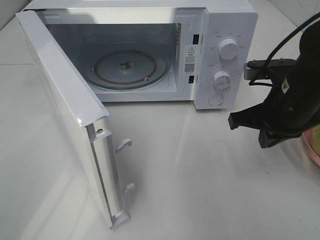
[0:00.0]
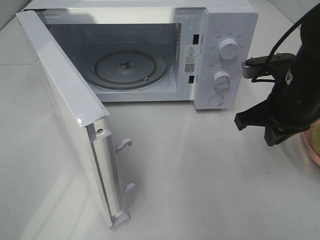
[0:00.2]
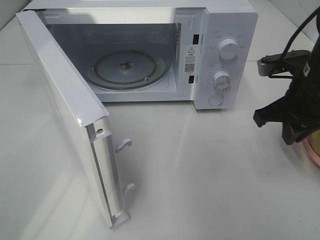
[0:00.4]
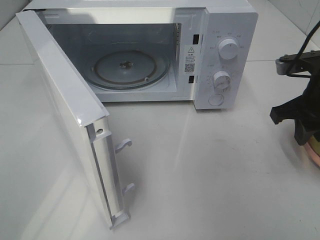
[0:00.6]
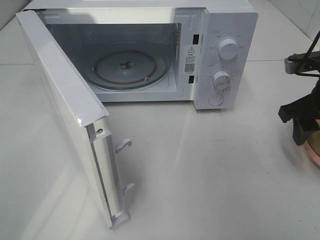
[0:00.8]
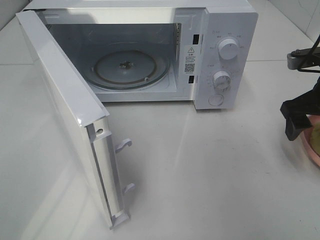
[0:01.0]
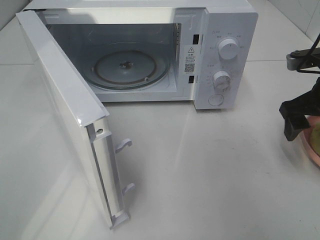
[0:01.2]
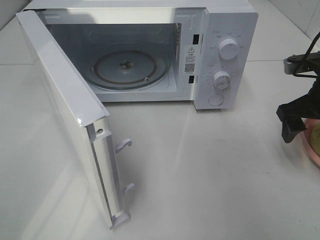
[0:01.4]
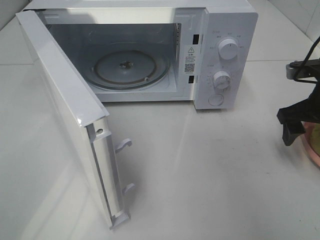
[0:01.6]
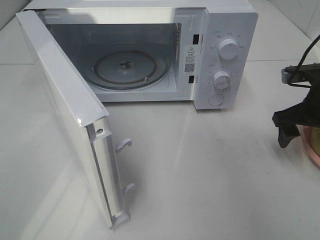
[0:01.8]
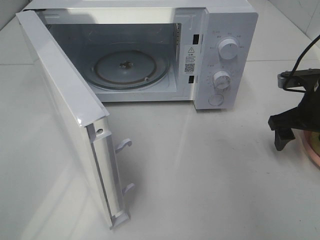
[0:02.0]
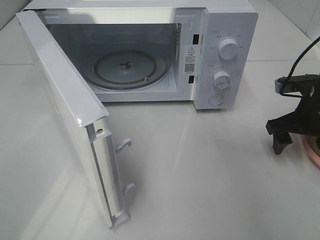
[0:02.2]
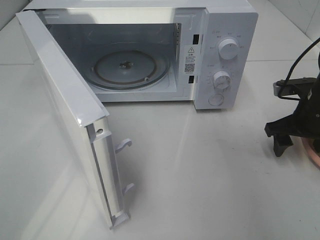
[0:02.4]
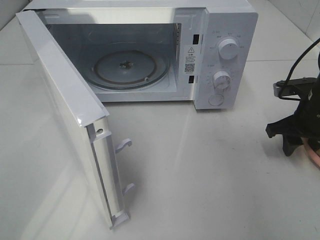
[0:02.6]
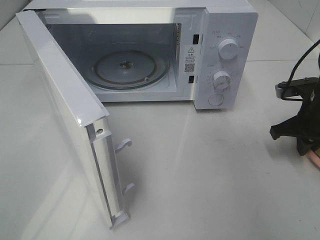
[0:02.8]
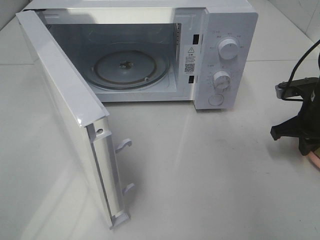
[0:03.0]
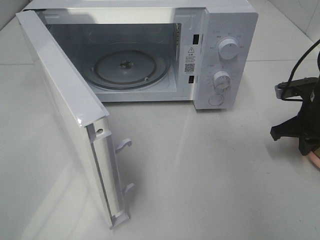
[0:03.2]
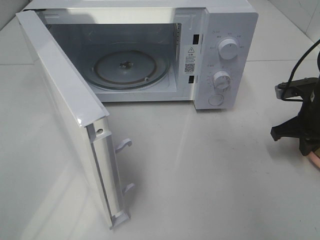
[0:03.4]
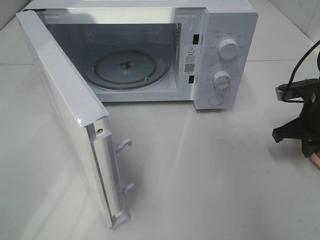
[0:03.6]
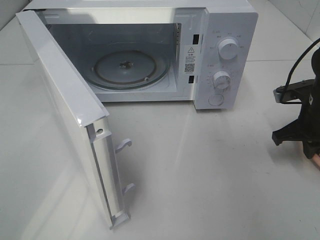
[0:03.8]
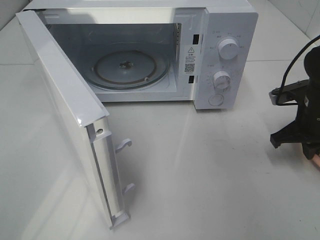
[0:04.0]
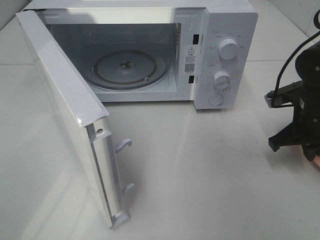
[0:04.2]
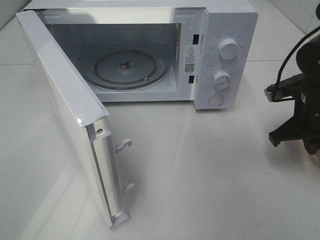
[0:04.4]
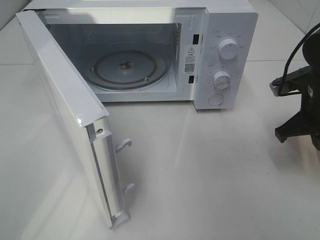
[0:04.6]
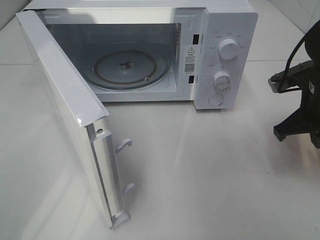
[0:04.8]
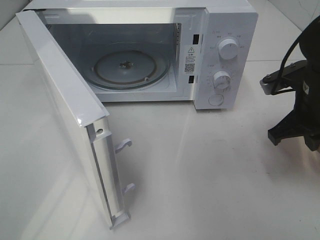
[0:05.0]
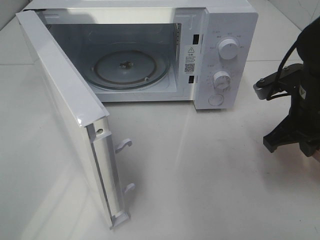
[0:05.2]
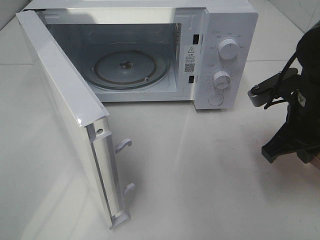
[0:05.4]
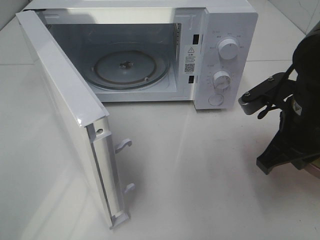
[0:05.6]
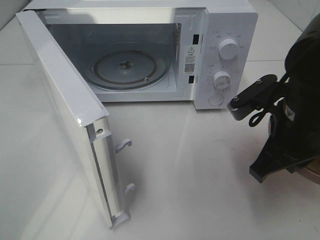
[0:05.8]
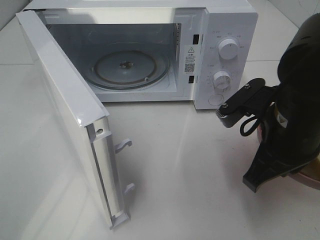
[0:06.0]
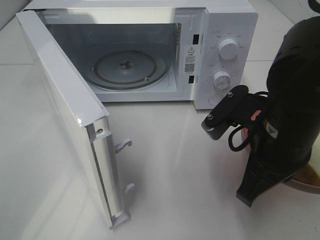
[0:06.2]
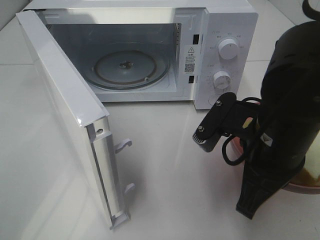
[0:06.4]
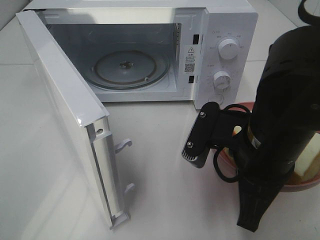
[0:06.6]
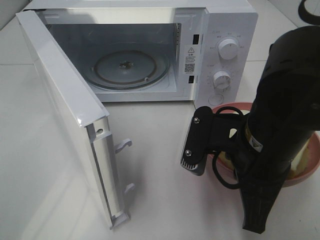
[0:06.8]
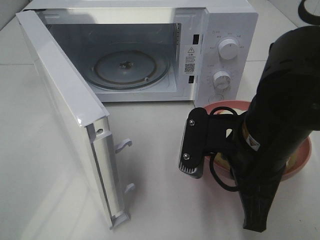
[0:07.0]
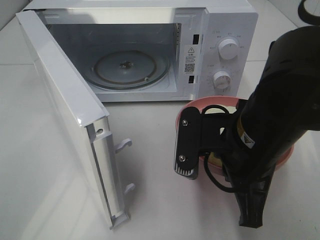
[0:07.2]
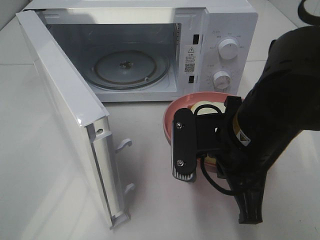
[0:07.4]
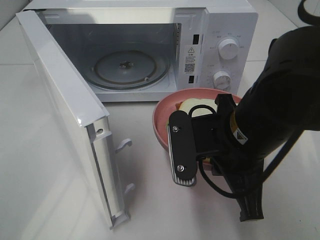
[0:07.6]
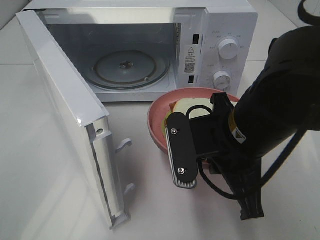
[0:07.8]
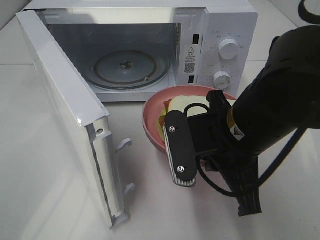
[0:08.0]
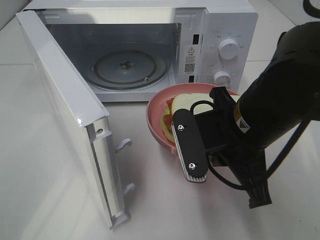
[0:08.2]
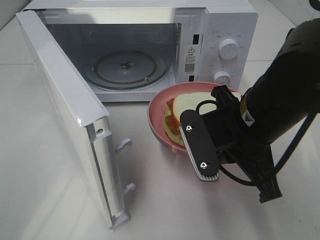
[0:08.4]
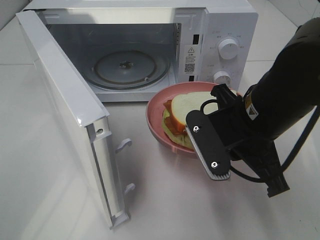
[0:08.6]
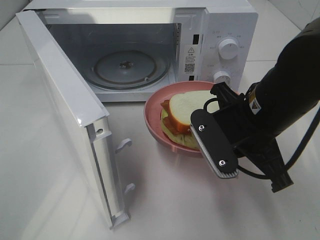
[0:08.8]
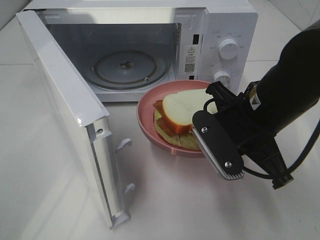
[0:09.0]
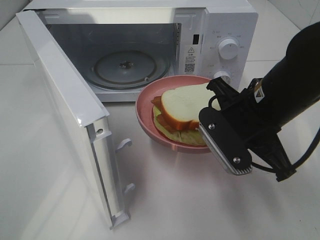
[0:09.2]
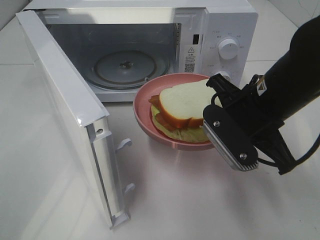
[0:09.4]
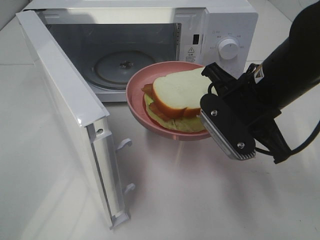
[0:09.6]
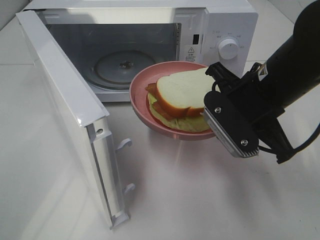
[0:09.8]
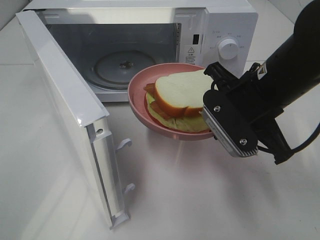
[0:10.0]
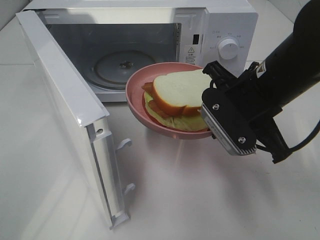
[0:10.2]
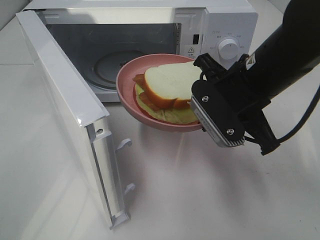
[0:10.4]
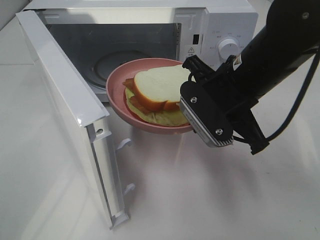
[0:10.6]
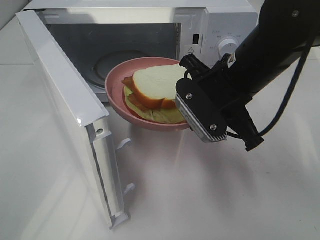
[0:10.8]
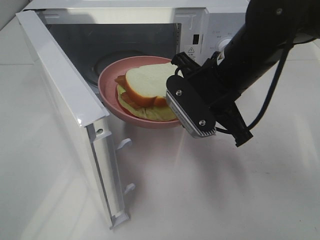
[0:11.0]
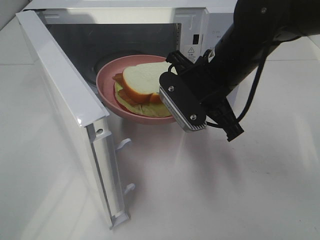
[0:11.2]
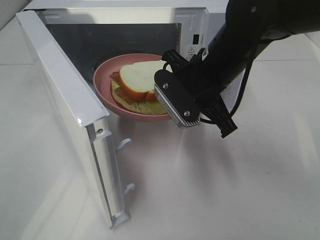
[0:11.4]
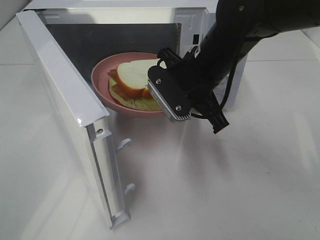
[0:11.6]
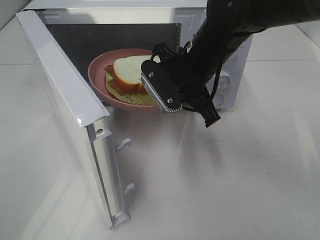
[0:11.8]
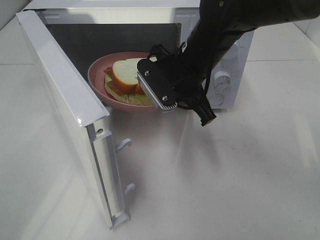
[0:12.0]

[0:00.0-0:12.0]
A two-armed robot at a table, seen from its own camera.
Task of the whole recording: Heat Sandwich.
Step, 0:00.0 to 0:03.2: Right hand: grab the plate with the sandwich.
0:00.0 to 0:01.6: The right gripper heads to the right, covering some 10 cm, and opens up.
0:01.6 to 0:03.0: The right gripper closes its fingers.
0:03.0 to 0:04.4: The grippers stay close to where they were, moving slightly.
0:04.4 to 0:06.0: The right gripper goes approximately 15 cm to the left, backward and upward.
0:06.0 to 0:07.6: The right gripper is displaced to the left by some 5 cm.
0:07.6 to 0:09.0: The right gripper shifts by approximately 5 cm.
0:10.4 to 0:12.0: The right gripper goes approximately 10 cm forward and to the left.

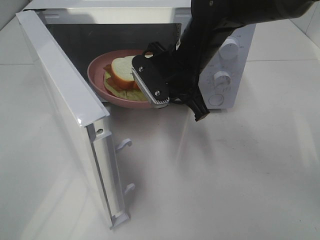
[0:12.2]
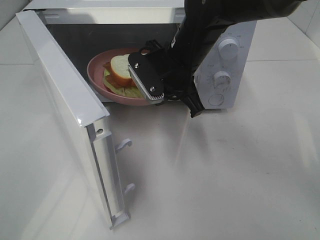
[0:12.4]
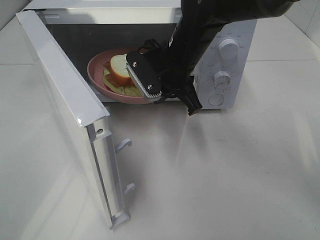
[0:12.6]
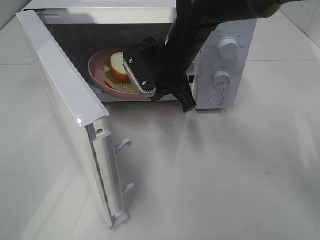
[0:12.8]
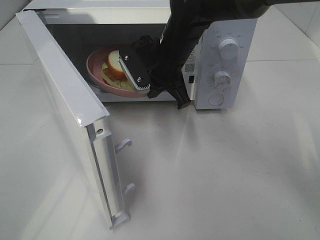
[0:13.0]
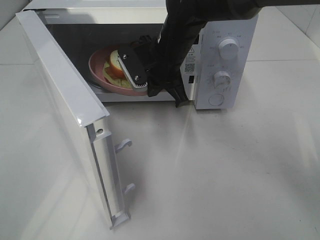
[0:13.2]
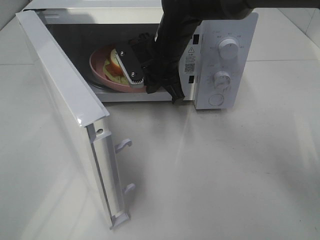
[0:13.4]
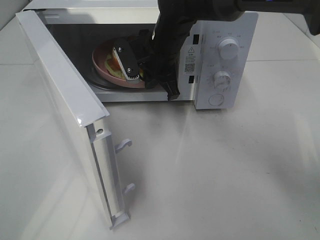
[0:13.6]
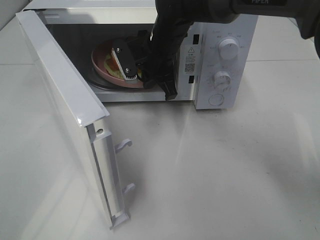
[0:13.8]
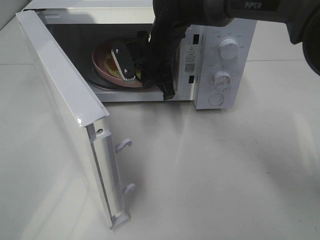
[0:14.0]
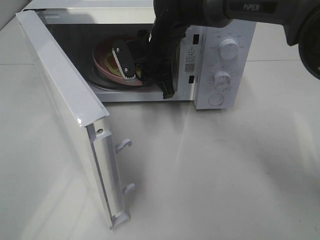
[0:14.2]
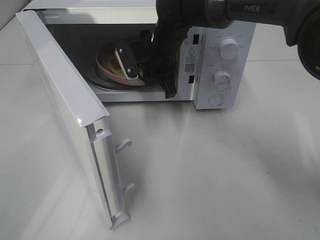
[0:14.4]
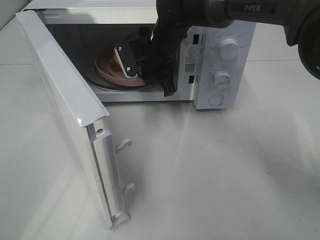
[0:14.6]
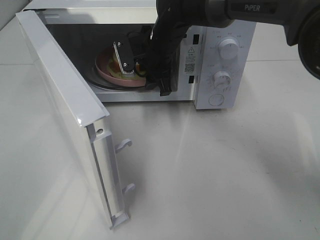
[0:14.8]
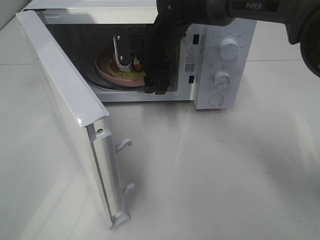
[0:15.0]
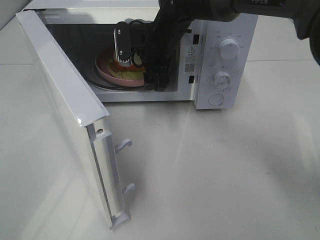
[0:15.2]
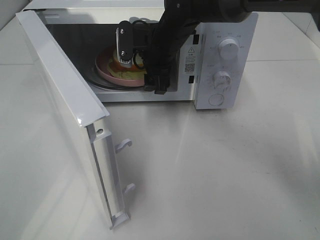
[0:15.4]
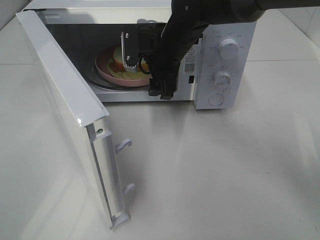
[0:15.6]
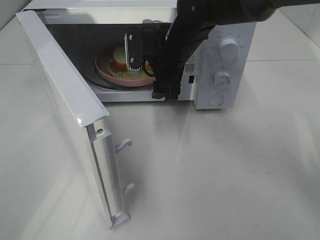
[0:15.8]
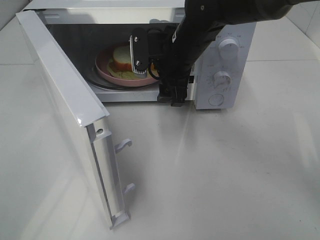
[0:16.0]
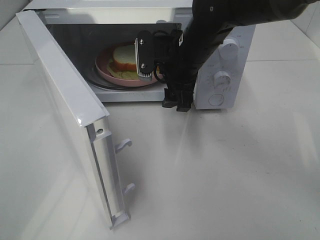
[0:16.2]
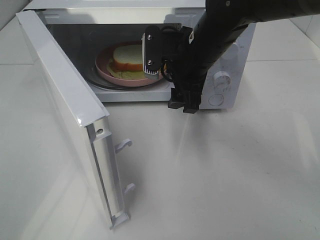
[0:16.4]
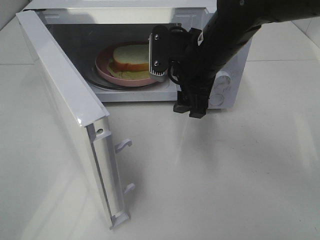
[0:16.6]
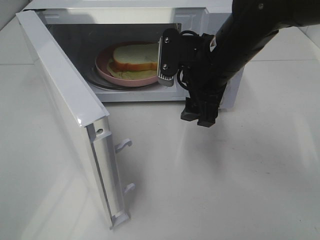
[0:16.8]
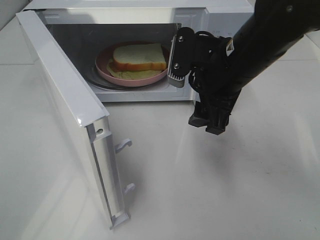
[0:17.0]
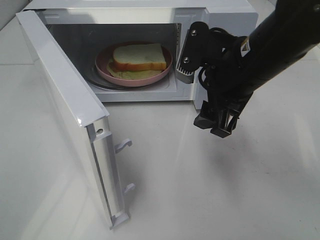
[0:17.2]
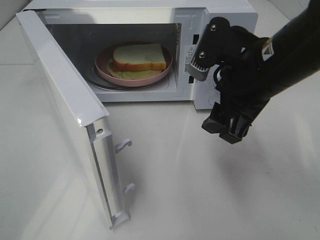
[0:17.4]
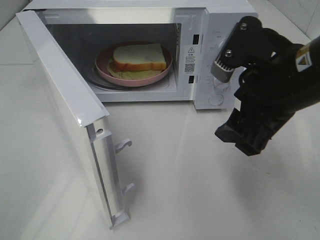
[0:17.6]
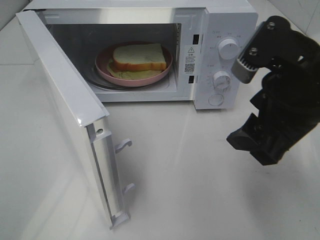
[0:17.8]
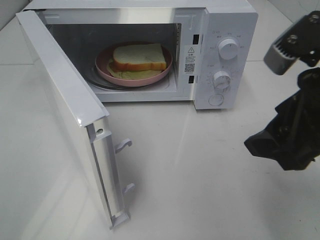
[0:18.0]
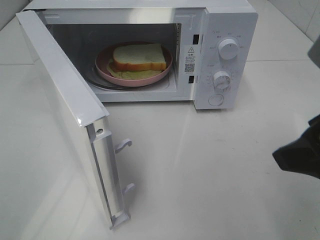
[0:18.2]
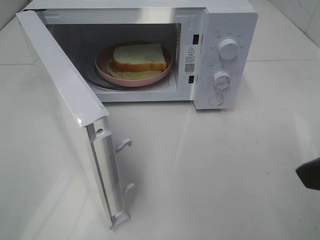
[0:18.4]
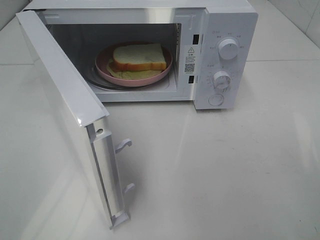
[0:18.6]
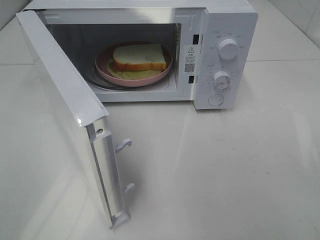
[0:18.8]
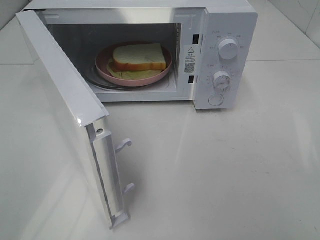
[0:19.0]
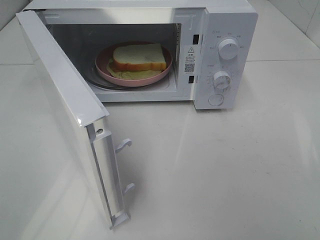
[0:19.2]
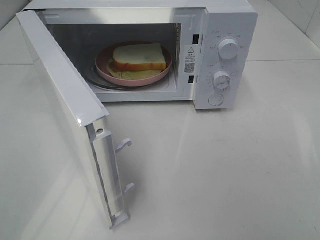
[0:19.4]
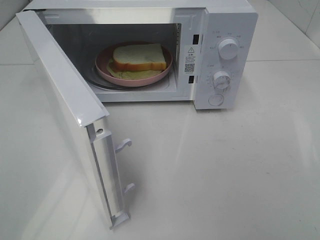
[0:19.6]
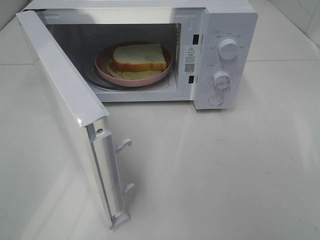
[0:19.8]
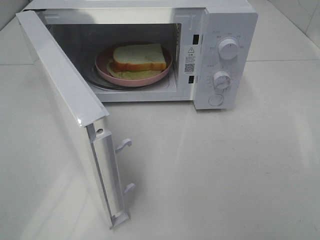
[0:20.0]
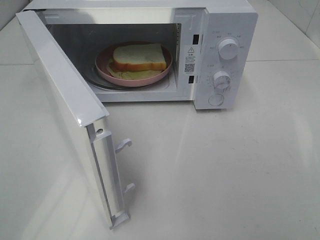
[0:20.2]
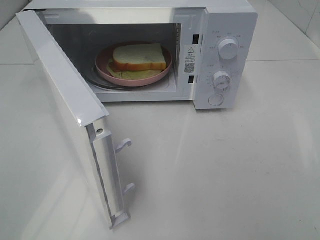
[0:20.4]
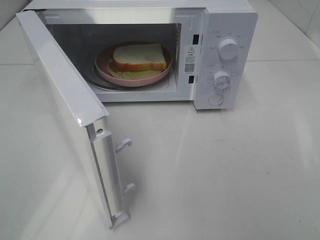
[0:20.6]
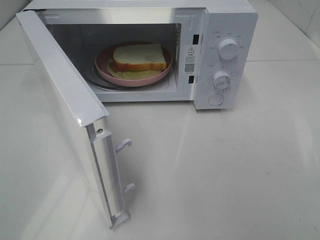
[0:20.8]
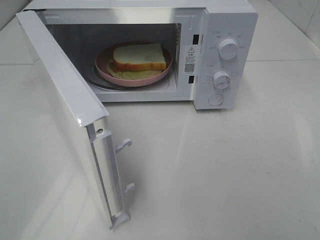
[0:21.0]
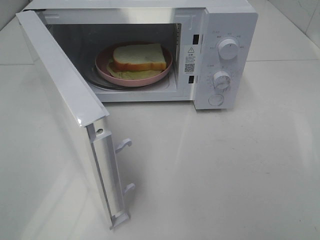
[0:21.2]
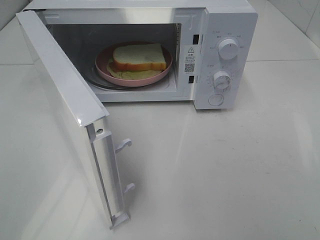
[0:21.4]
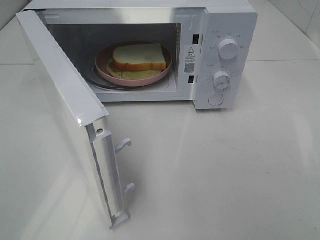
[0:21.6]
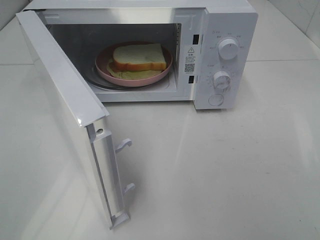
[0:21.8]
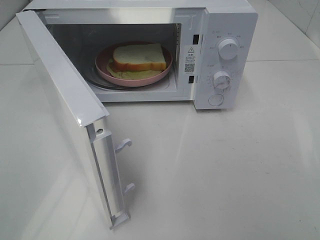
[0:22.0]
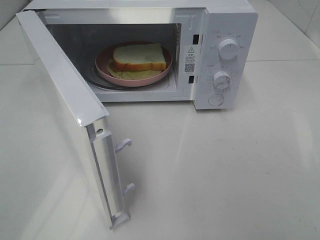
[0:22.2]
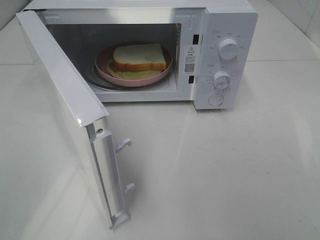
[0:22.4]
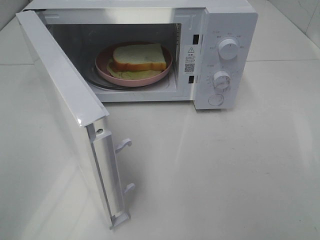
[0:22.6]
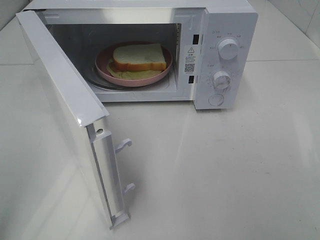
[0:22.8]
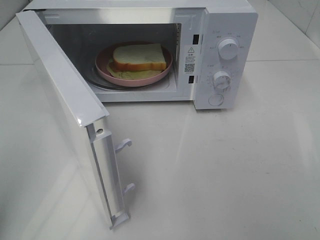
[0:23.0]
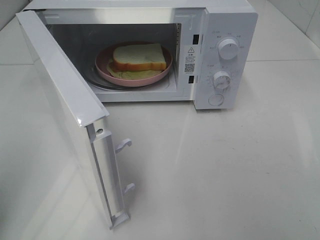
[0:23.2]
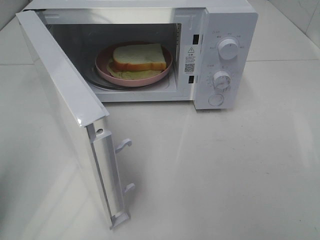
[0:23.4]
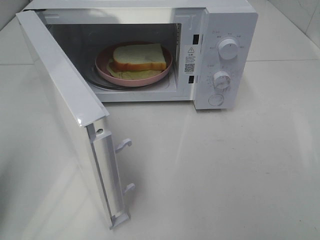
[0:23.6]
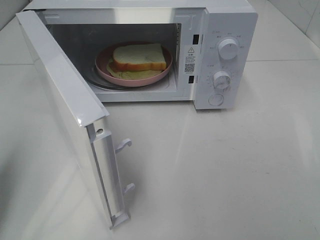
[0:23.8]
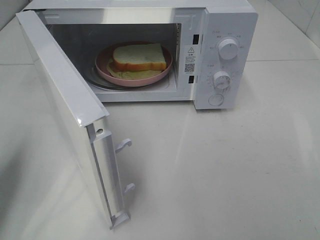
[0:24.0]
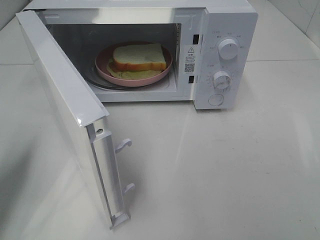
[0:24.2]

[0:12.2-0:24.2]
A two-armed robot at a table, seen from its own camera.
Task of the whole recording: Heat Sandwich.
Step, 0:12.2 to 0:14.8: Right hand: place the plate in the microwave.
0:12.2 to 0:13.8: The right gripper goes approximately 10 cm forward.
0:13.8 to 0:15.2: The right gripper opens up.
0:15.2 to 0:16.6: The right gripper shifts approximately 15 cm backward and to the right.
0:16.6 to 0:18.2: The right gripper shifts about 25 cm backward and to the right.
0:18.2 to 0:19.8: The right gripper travels backward and to the right by roughly 15 cm.
0:22.6 to 0:24.2: The left gripper goes some 20 cm forward and downward, and closes up.
